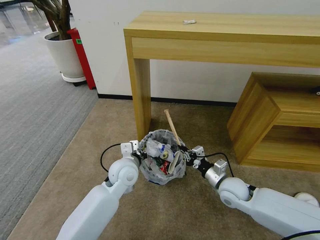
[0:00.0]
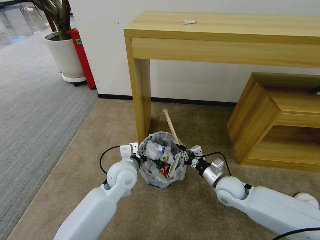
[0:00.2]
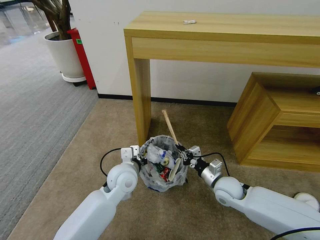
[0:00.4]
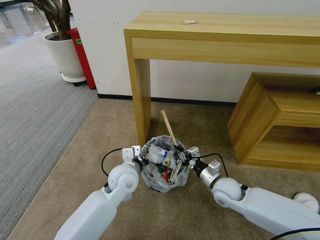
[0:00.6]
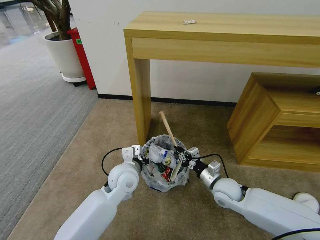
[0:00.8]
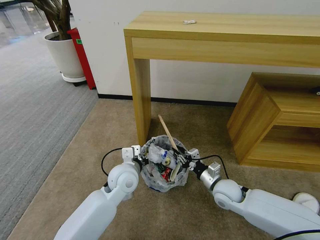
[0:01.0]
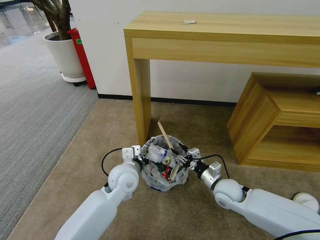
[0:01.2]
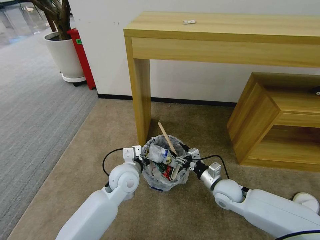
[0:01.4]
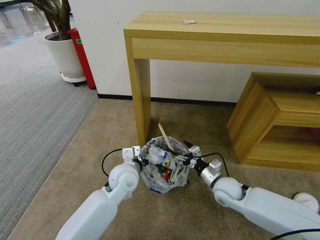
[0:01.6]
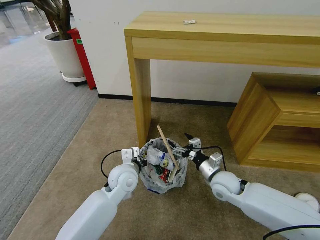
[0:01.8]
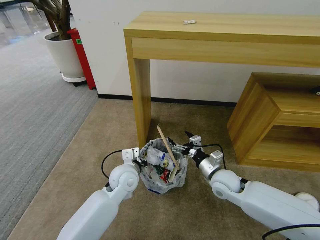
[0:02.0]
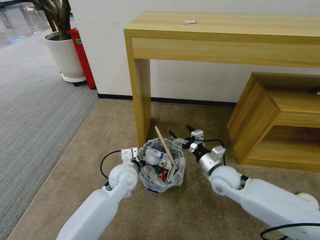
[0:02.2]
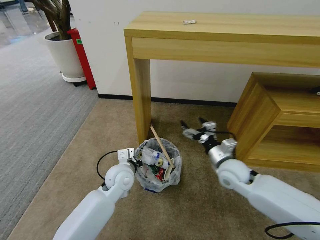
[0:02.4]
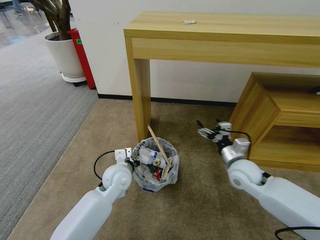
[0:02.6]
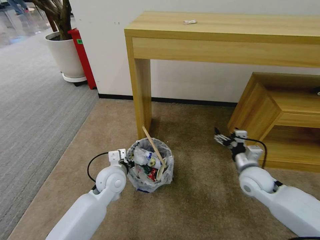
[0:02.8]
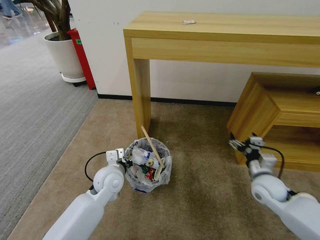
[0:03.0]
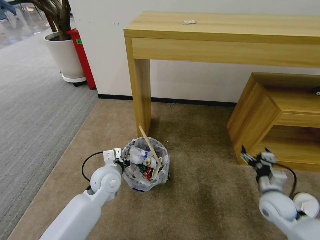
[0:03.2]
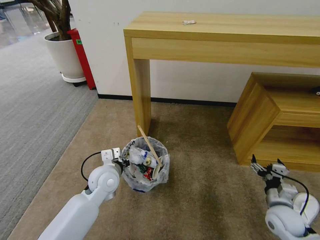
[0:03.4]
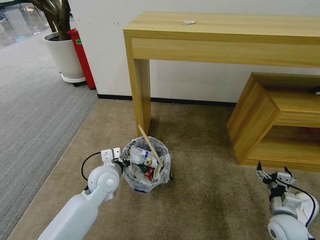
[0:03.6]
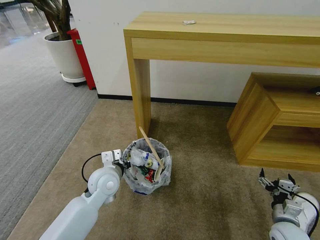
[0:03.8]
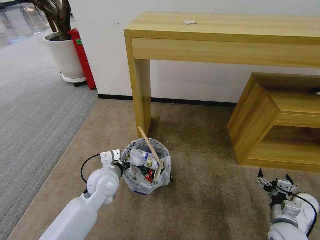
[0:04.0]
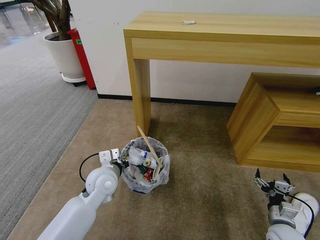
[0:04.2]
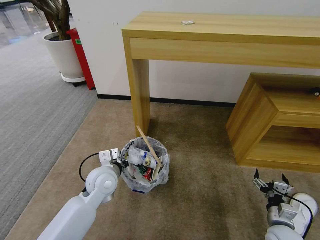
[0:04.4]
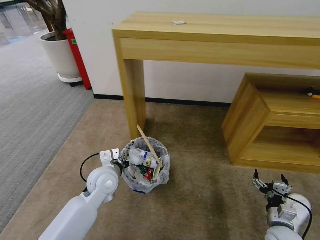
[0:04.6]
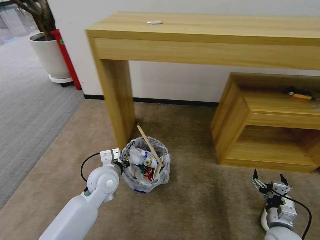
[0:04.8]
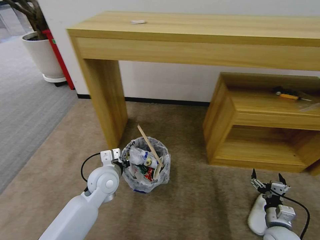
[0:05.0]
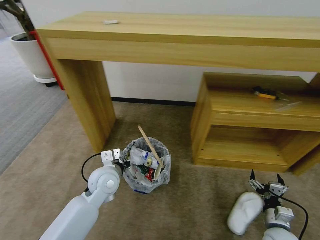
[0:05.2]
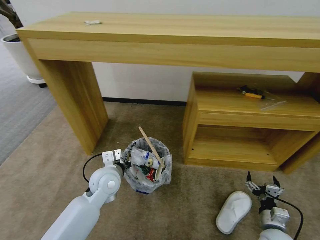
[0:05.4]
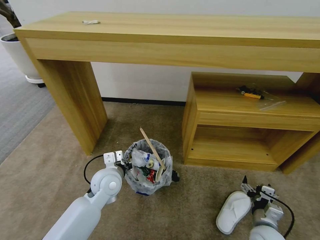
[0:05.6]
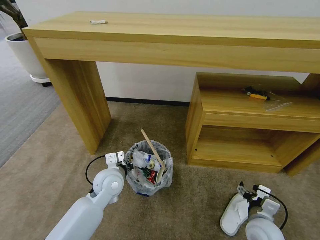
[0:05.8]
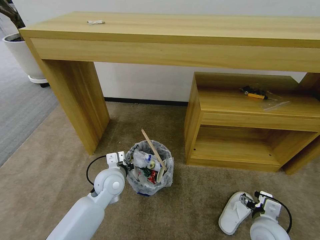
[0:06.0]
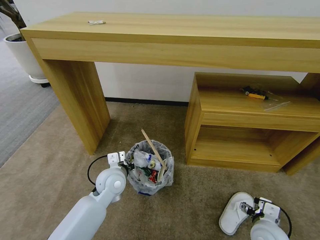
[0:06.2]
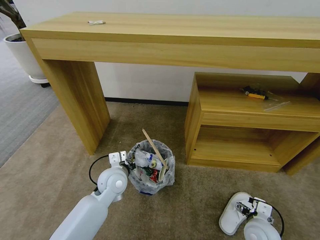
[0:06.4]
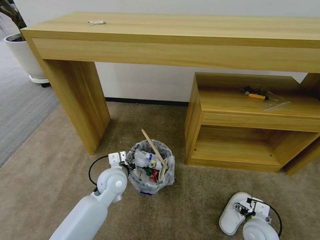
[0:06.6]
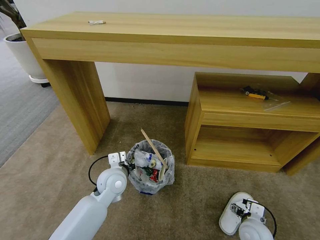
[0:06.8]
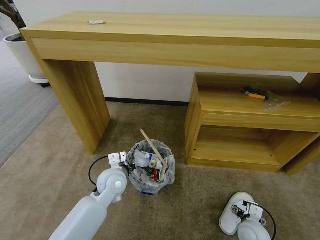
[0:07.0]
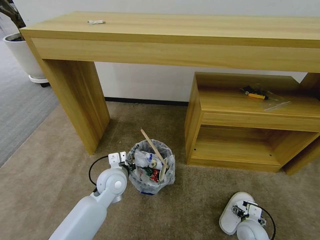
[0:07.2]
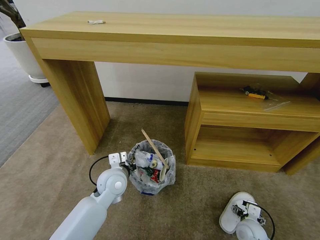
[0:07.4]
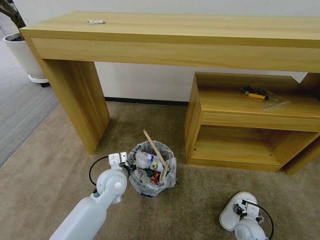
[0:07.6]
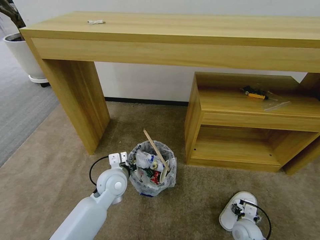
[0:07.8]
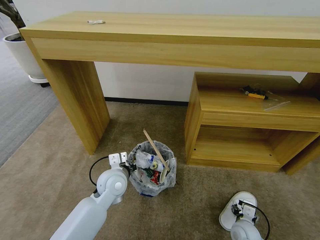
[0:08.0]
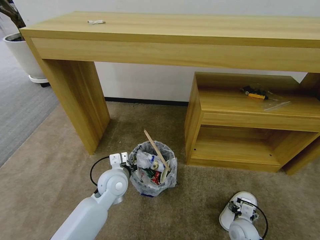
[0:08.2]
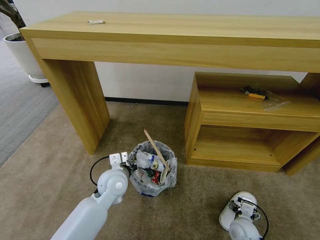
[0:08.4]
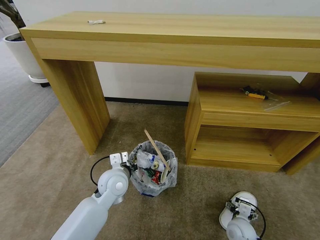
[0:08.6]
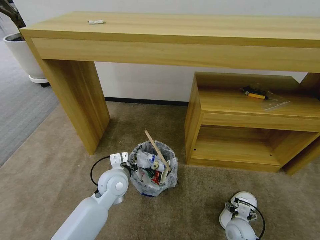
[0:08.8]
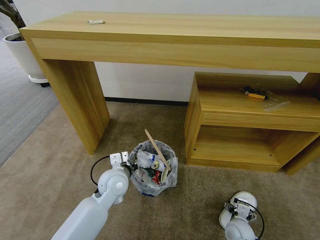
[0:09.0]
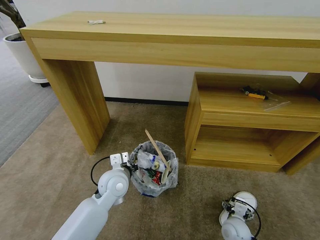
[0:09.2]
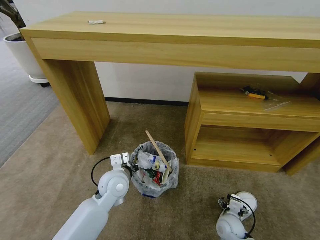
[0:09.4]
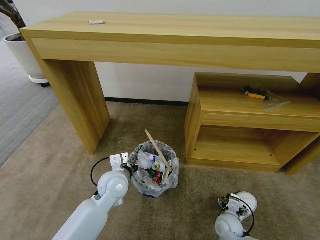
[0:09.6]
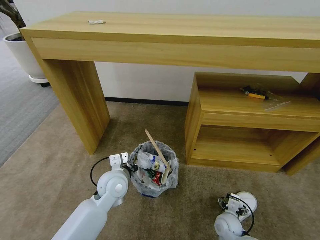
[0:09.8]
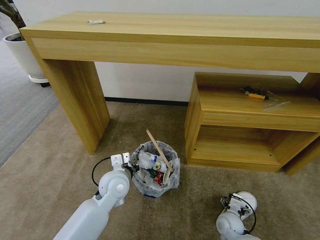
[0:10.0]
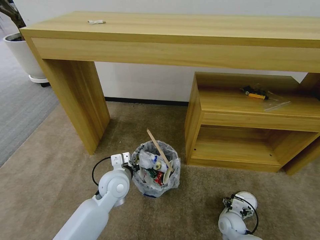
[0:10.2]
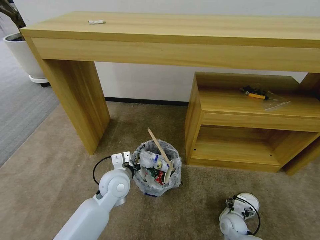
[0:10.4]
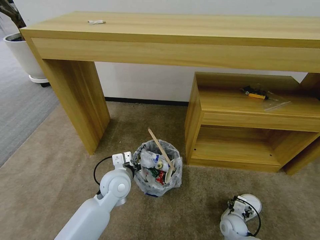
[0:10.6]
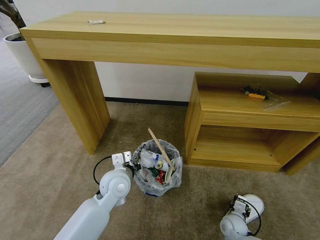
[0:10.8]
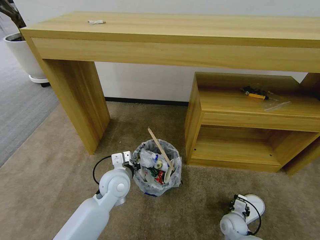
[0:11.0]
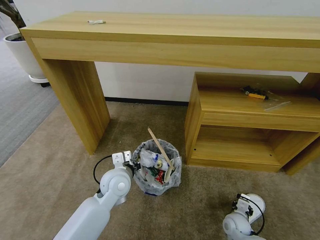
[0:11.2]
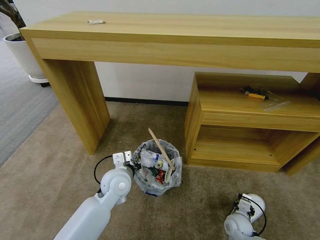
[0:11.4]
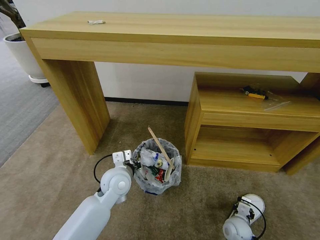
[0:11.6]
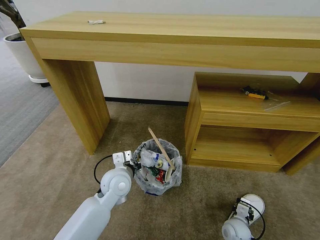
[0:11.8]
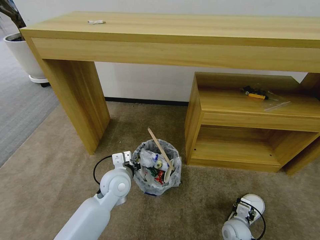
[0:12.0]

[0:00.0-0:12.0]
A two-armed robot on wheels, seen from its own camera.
Task of the whole recording: Pick up the trash bin and place the garbage on the floor into it.
0:00.0 to 0:01.6: The right gripper opens up.
0:01.6 to 0:03.0: The right gripper shifts roughly 10 cm to the right. The left gripper travels to the left by approximately 5 cm.
0:03.0 to 0:04.4: The right gripper shifts about 20 cm backward and downward.
0:04.4 to 0:06.0: The right gripper travels to the left and upward by roughly 10 cm.
0:06.0 to 0:07.6: The right gripper travels downward by roughly 15 cm.
0:07.6 to 0:09.0: The grippers move only a little.
0:09.0 to 0:10.4: The right gripper ends up roughly 5 cm from where it was.
0:10.4 to 0:12.0: The right gripper closes its fingers.

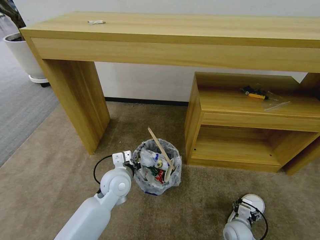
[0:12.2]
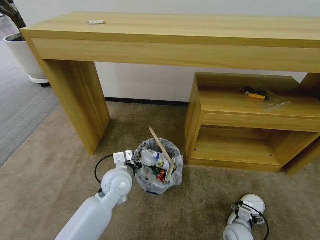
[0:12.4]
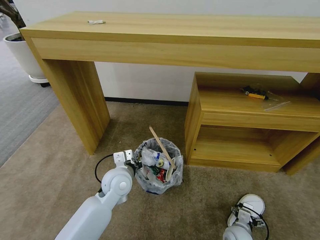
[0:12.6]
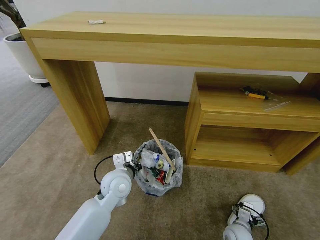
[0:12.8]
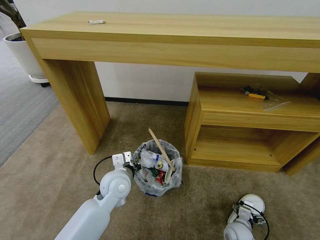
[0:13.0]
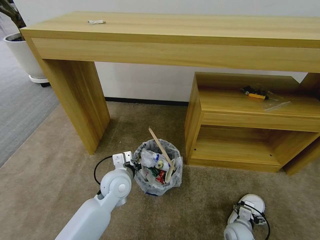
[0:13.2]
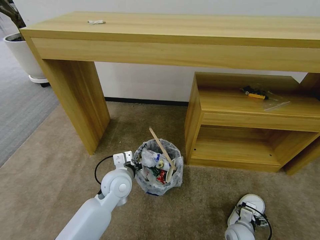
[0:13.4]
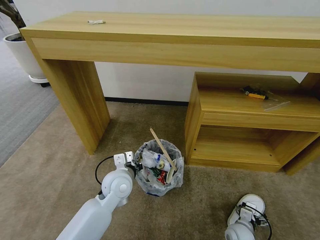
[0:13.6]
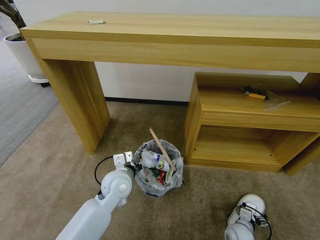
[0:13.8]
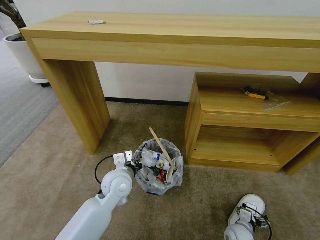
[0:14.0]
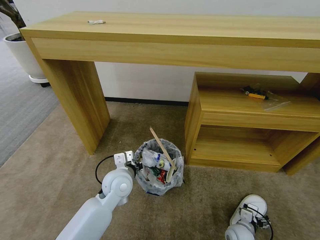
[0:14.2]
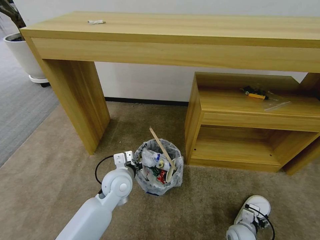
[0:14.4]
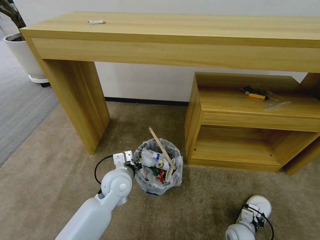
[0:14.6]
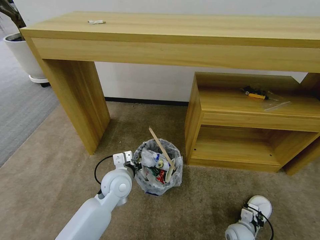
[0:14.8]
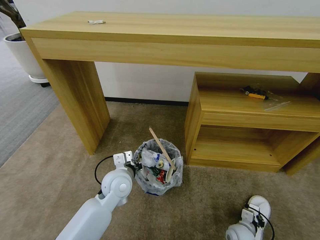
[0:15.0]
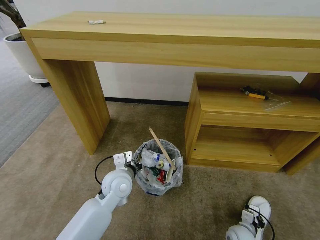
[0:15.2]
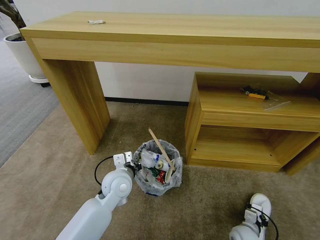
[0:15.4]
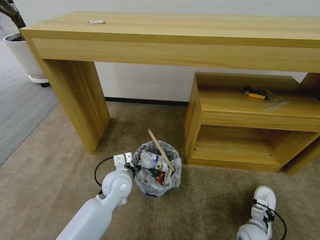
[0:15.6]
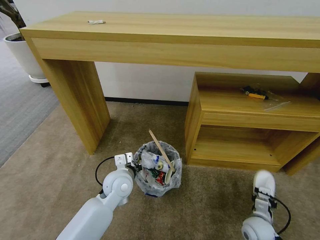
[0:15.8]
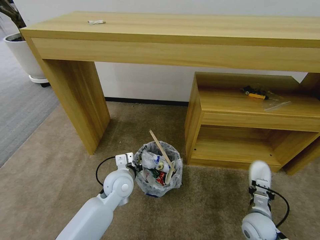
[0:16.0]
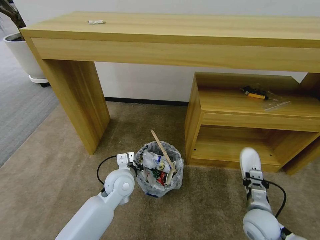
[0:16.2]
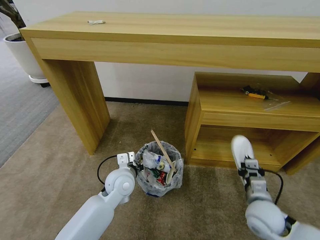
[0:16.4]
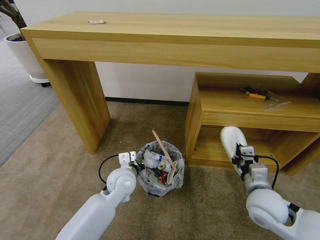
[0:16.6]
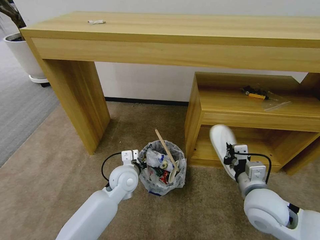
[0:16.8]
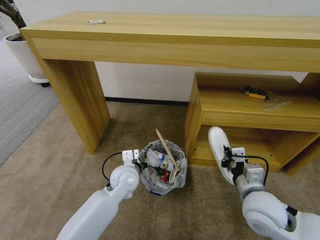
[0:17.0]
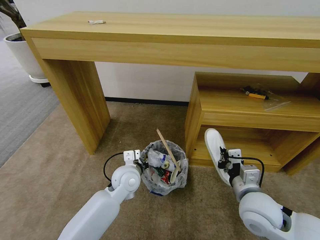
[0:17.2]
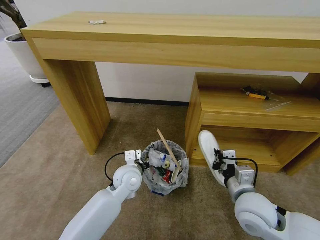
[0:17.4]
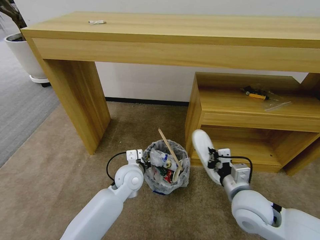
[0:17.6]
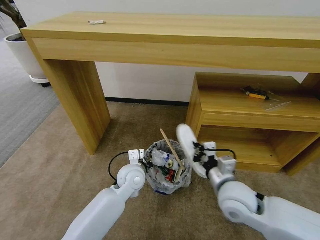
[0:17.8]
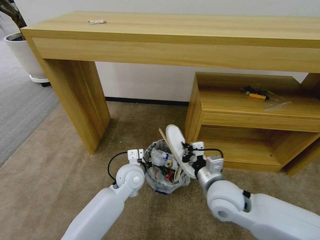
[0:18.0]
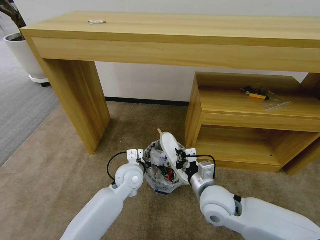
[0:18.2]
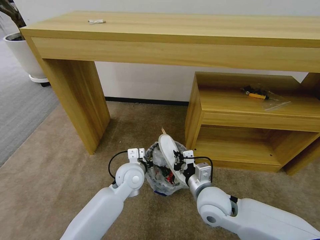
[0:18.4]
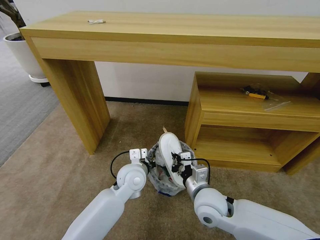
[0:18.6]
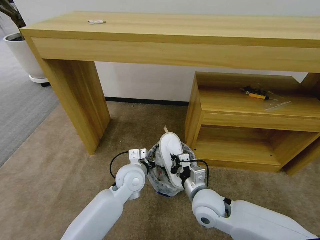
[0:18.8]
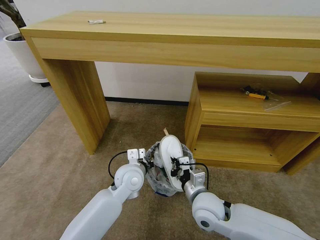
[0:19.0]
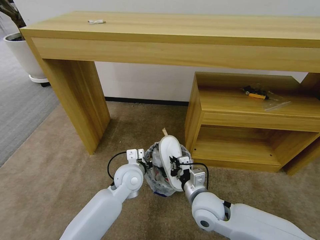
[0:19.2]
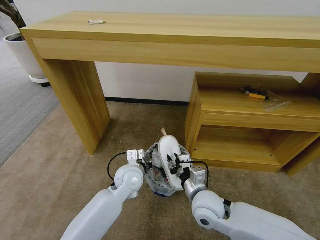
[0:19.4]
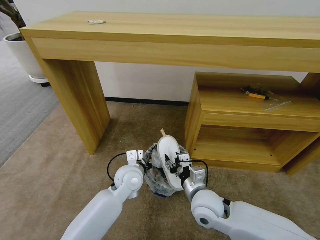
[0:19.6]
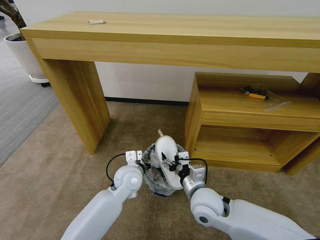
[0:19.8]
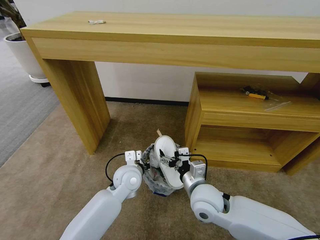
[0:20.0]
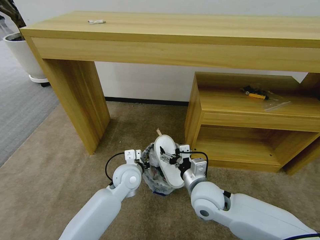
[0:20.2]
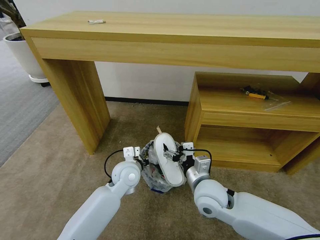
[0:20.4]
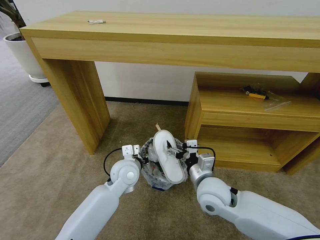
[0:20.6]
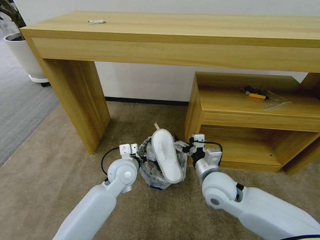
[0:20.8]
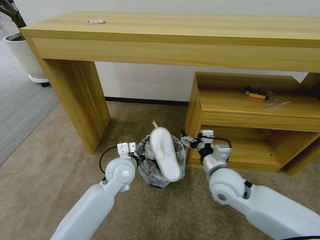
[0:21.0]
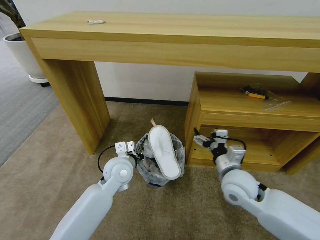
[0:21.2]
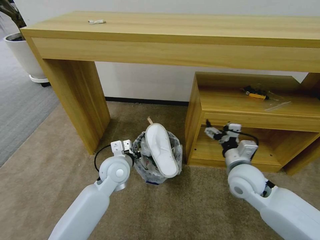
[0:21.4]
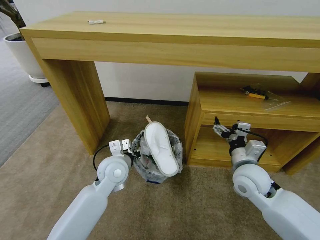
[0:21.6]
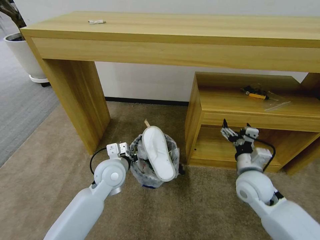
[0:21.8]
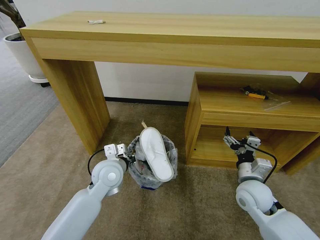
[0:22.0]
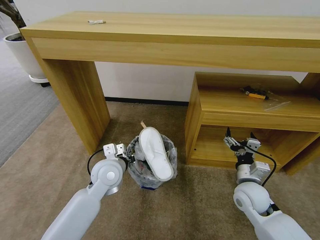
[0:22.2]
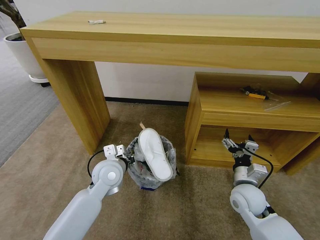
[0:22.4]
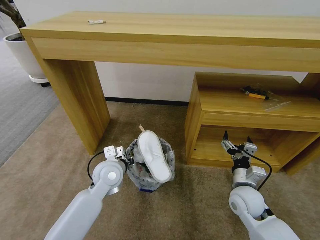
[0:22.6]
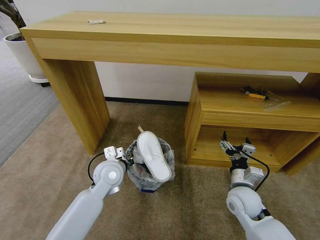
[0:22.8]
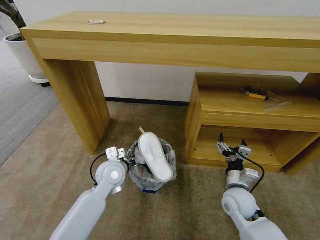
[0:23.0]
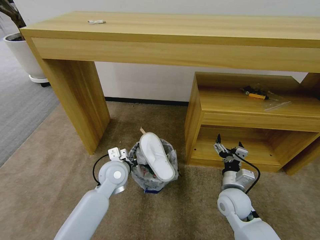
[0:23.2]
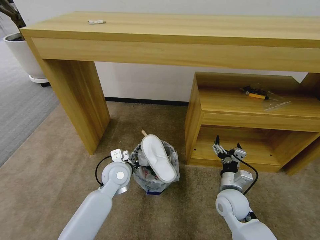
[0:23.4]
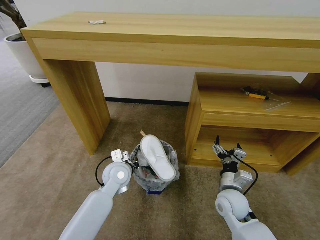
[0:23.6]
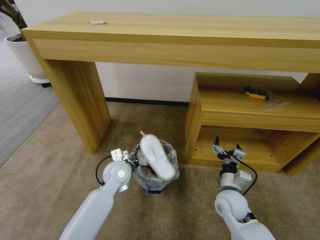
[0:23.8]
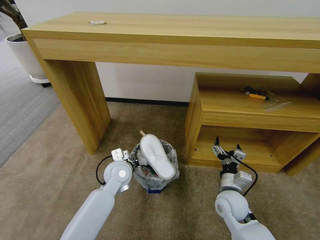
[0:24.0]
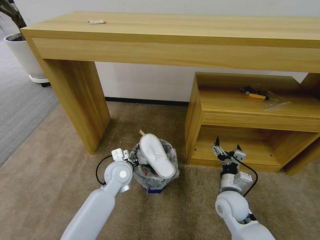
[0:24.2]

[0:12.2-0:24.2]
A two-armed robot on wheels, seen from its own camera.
Task of the whole recording: Pick up the trash bin and place the garbage on the floor into it.
0:12.2 to 0:13.8: The grippers move only a little.
0:13.8 to 0:15.2: The right gripper closes its fingers.
0:15.2 to 0:16.6: The right gripper shifts approximately 30 cm upward.
0:16.6 to 0:18.2: The right gripper moves to the left, approximately 15 cm.
0:18.2 to 0:19.8: The right gripper opens up.
0:19.8 to 0:21.2: The right gripper shifts some 10 cm to the right.
0:21.2 to 0:22.6: The right gripper goes roughly 5 cm downward.
0:22.6 to 0:24.2: The grippers make only small movements.
